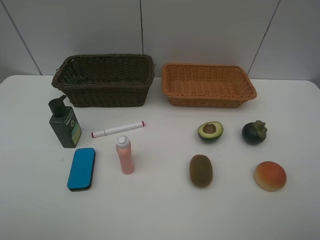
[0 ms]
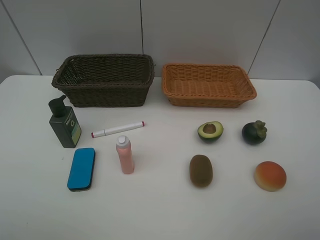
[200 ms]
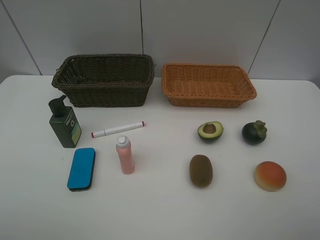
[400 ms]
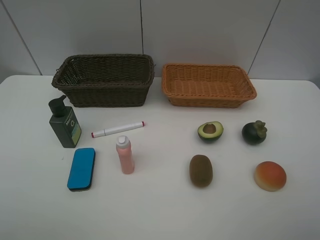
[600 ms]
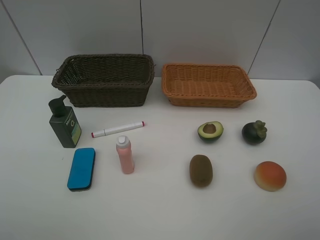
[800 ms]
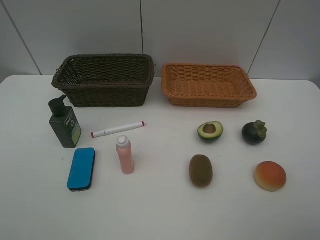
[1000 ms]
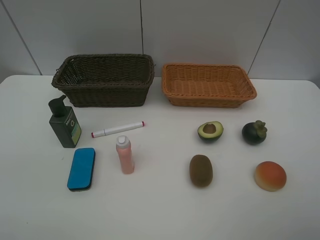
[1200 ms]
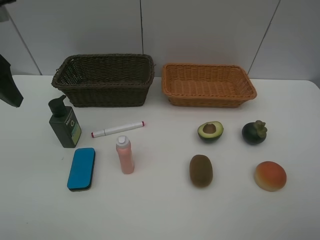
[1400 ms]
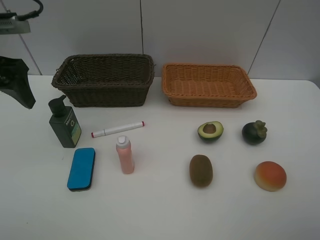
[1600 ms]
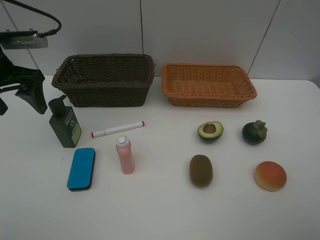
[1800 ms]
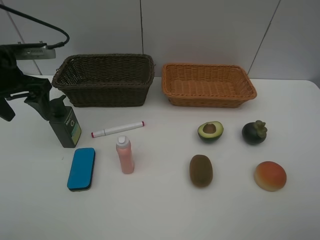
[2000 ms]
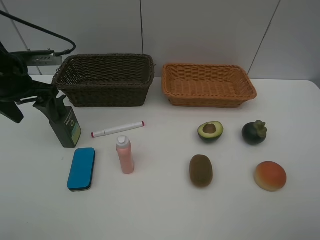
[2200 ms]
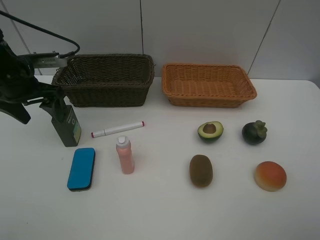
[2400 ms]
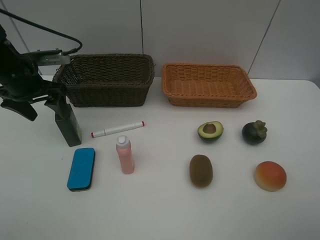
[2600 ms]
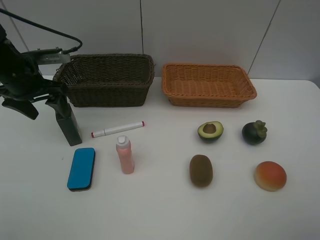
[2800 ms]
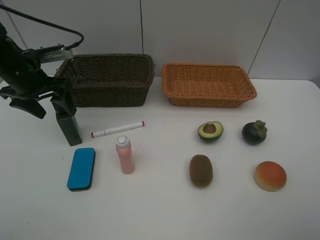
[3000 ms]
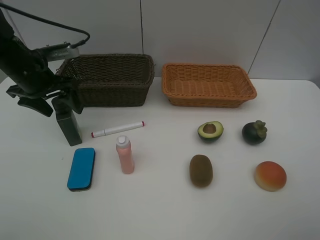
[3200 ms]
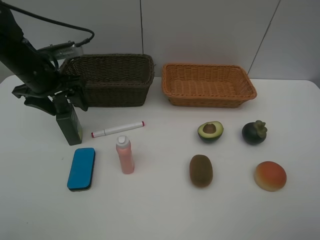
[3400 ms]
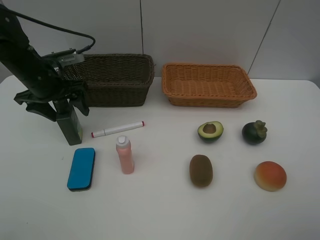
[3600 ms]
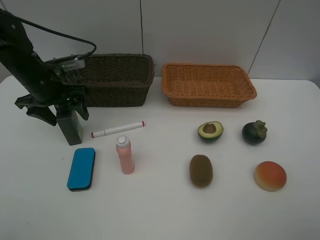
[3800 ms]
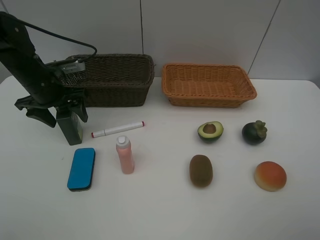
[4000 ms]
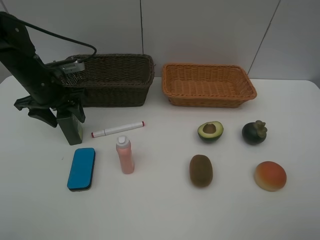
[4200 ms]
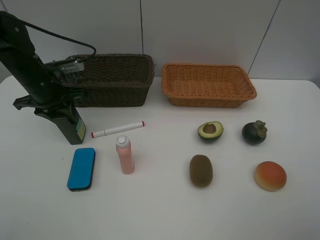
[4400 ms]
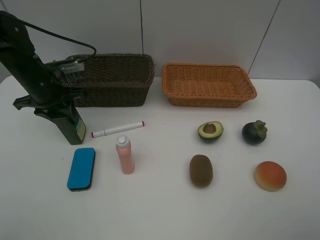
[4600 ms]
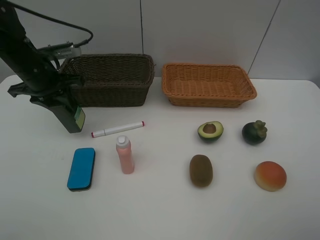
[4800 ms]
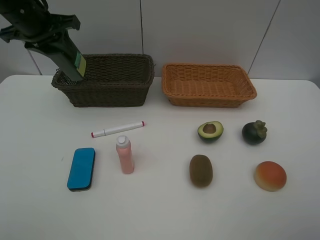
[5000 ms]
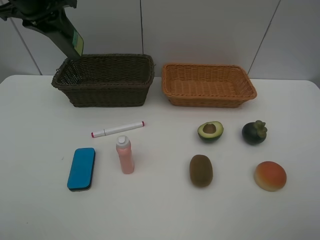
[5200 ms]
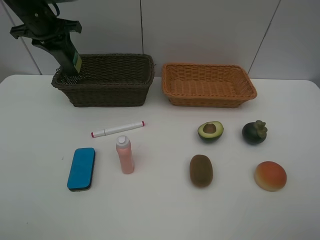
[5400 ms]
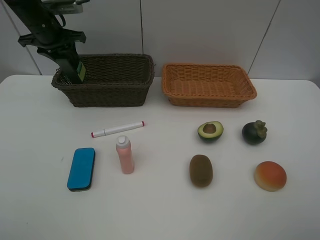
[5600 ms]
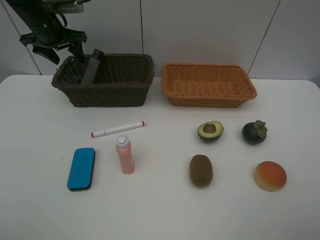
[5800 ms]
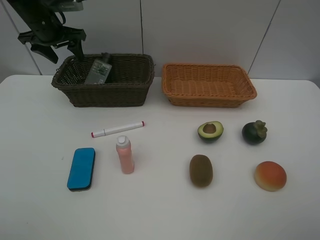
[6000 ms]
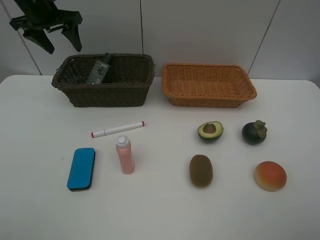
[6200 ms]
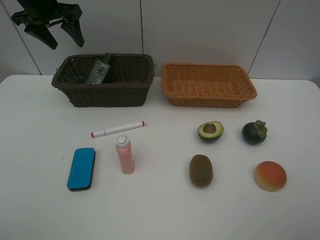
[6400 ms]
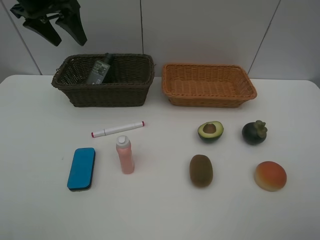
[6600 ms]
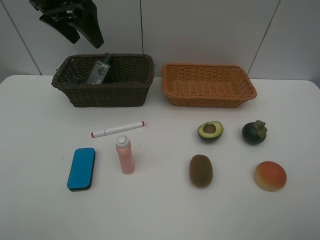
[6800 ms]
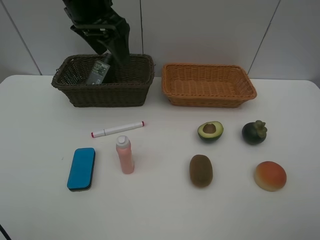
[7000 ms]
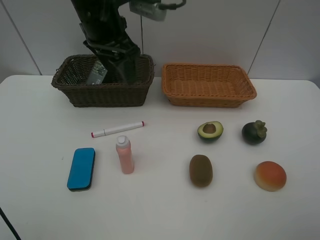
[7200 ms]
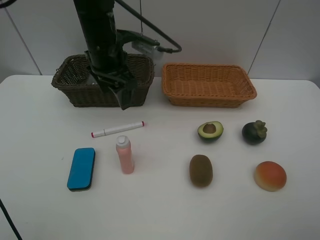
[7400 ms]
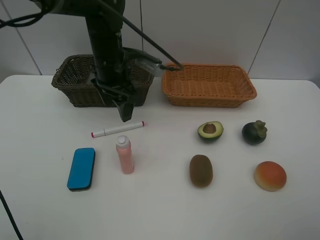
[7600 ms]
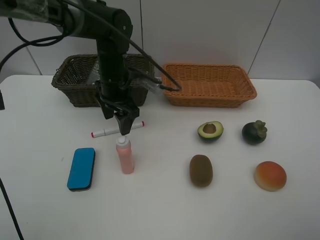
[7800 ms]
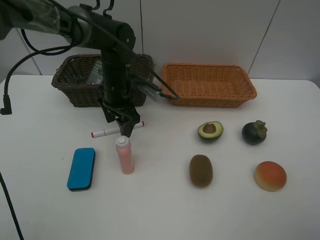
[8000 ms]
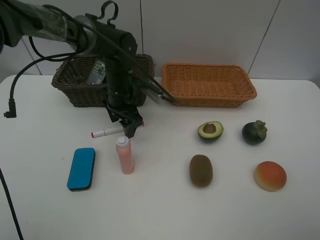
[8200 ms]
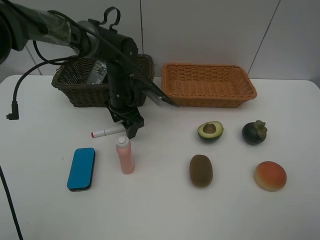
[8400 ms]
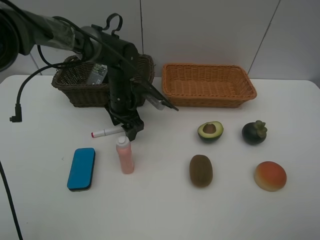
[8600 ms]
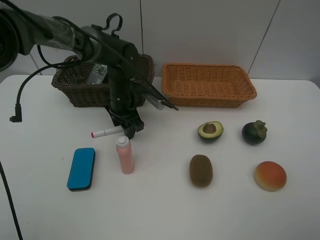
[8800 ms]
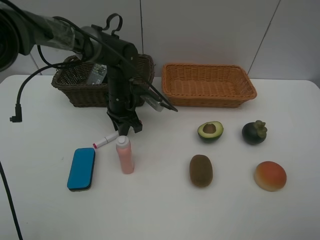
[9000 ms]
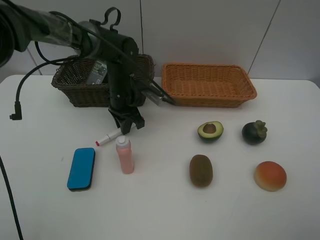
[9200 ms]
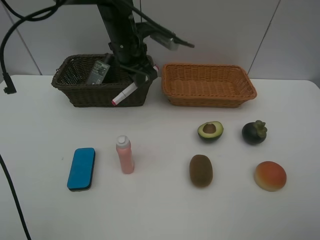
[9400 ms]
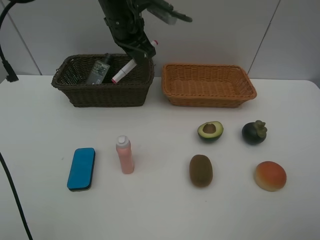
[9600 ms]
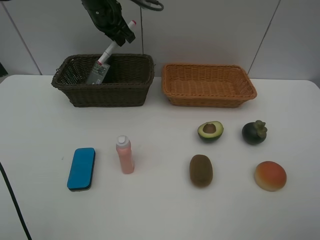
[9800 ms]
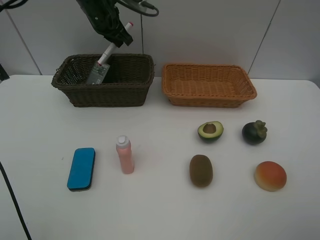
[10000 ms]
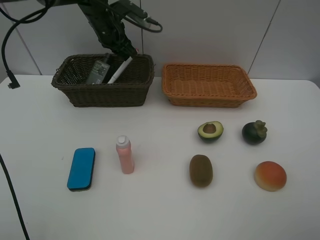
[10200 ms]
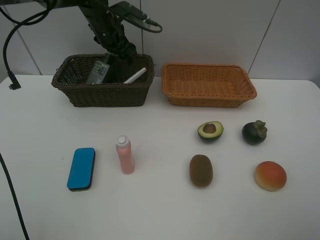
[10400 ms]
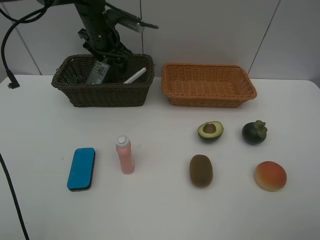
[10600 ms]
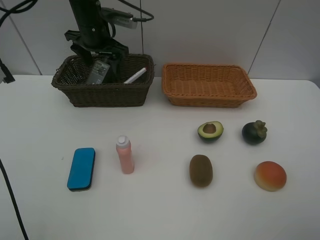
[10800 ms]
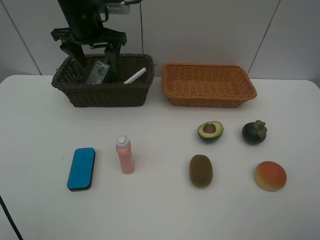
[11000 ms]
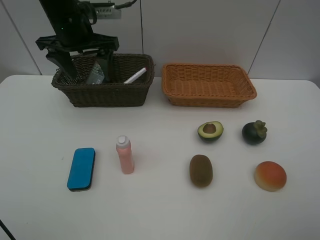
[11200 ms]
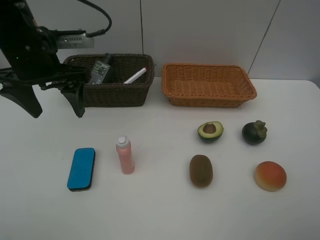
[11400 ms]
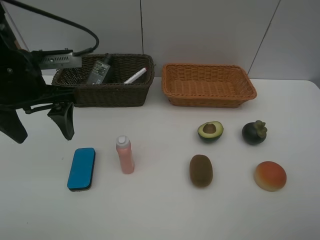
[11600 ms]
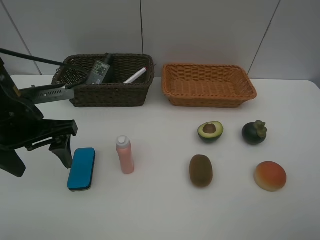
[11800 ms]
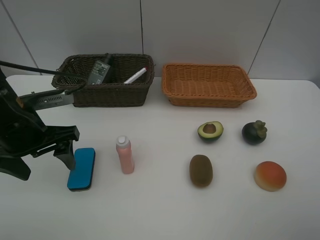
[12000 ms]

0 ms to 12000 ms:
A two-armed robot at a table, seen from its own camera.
Task of the whole recording: Place multiple objects separately in different baskets.
Step, 0 ms to 4800 ms: Pick up the hard facial cleanser with left gripper.
Step, 5000 ms to 6000 ms: Place the hard facial cleanser in the dark basket with left gripper.
Step, 6200 ms to 9200 ms: Pick up the red marker with left gripper.
Step, 9400 ms to 10400 ms: Place the red marker in the dark basket with left gripper.
0 ms to 1600 ms: The left gripper heads forward, covering approximately 30 cm.
1600 ms to 3000 ms: The left gripper travels downward and forward by approximately 10 cm.
3000 ms to 4400 ms: The left gripper closes.
4400 ms to 6000 ms: The left gripper is displaced forward and upward by some 15 cm, and opens its fingers.
6000 ms to 7600 ms: The left gripper heads to the right and backward, covering about 20 cm.
7600 ms to 9000 ms: The left gripper shifts about 10 cm downward, and closes.
9000 ms to 10400 ms: The left gripper shifts some 15 cm upward and forward, and opens.
10400 ms to 12000 ms: The left gripper shifts approximately 30 cm backward.

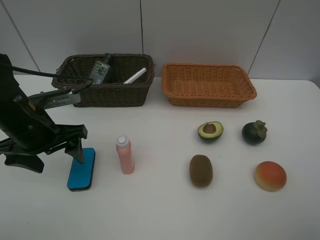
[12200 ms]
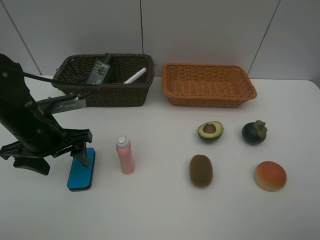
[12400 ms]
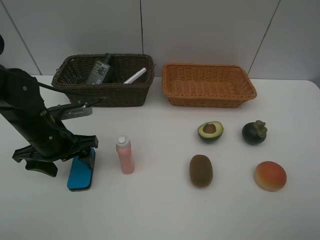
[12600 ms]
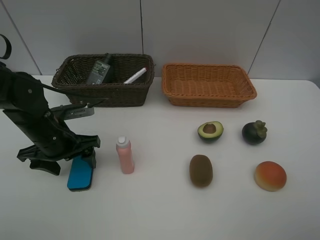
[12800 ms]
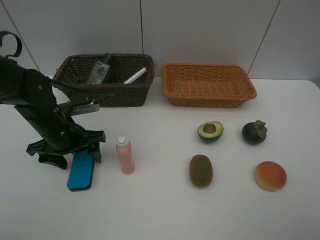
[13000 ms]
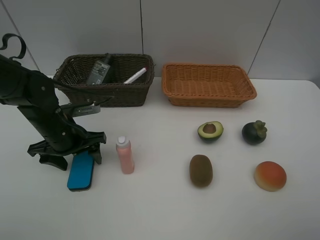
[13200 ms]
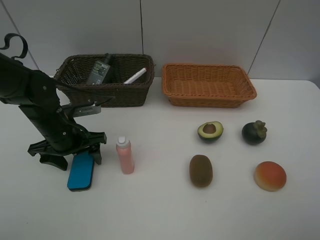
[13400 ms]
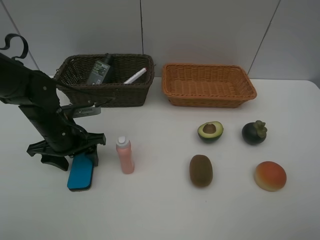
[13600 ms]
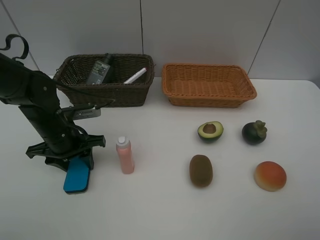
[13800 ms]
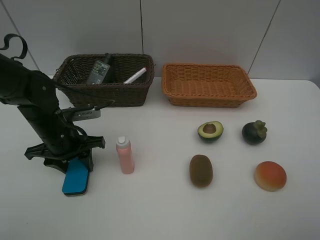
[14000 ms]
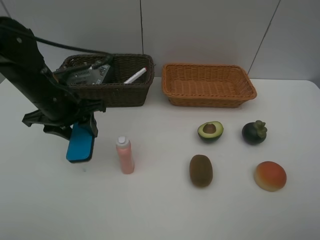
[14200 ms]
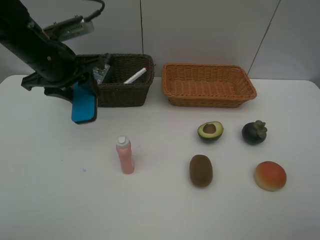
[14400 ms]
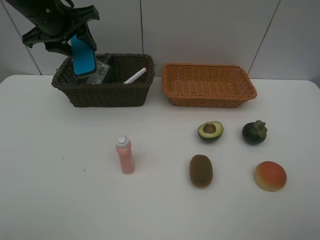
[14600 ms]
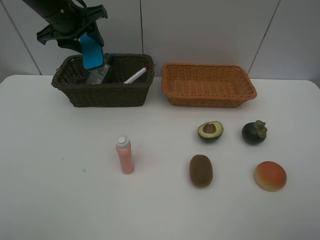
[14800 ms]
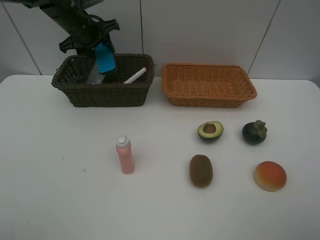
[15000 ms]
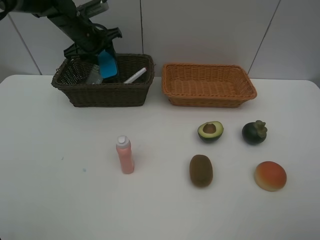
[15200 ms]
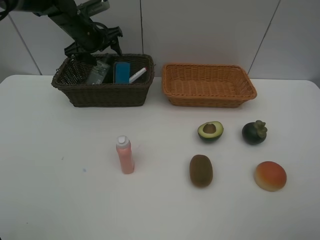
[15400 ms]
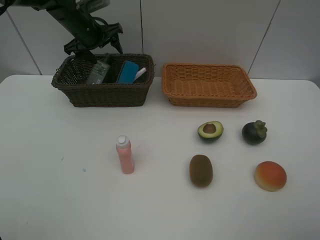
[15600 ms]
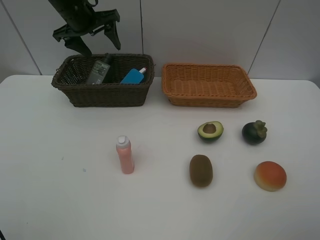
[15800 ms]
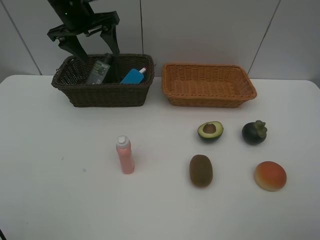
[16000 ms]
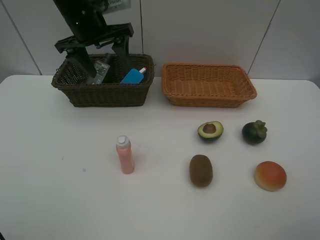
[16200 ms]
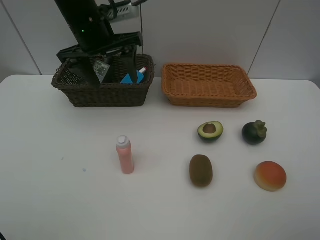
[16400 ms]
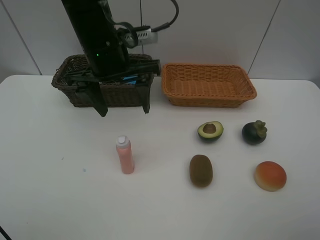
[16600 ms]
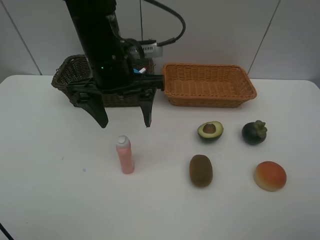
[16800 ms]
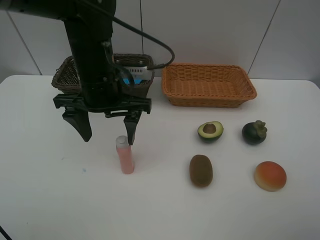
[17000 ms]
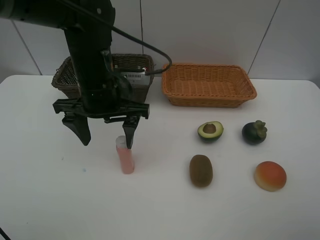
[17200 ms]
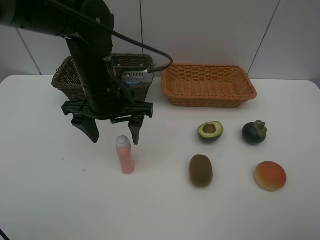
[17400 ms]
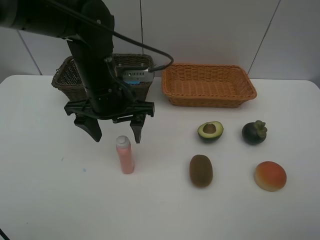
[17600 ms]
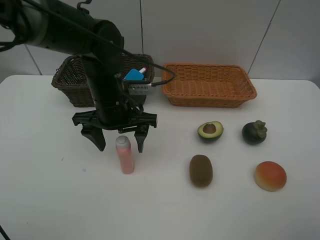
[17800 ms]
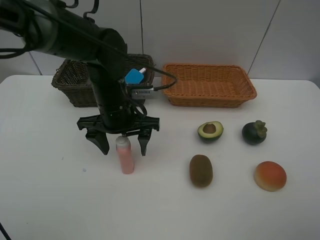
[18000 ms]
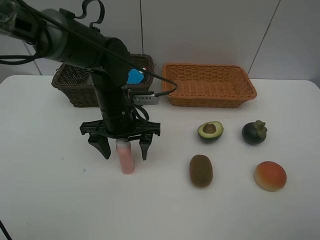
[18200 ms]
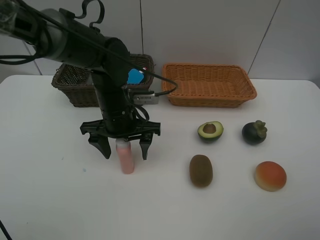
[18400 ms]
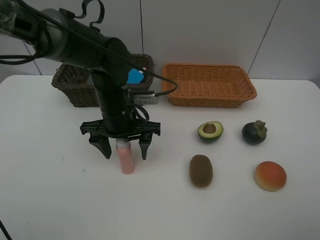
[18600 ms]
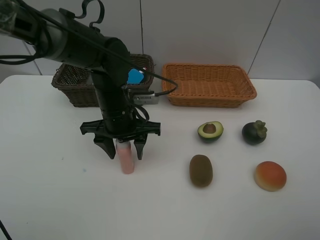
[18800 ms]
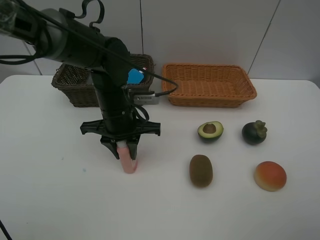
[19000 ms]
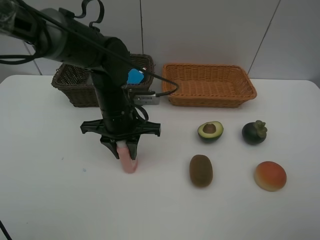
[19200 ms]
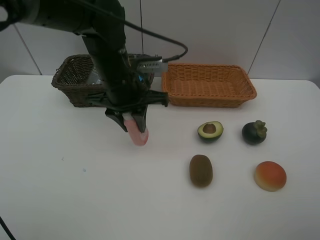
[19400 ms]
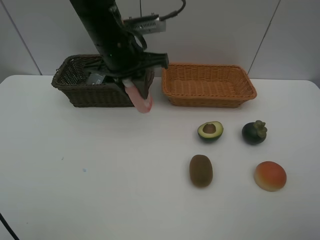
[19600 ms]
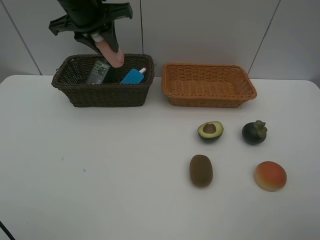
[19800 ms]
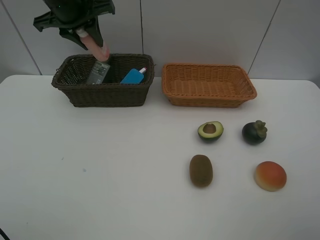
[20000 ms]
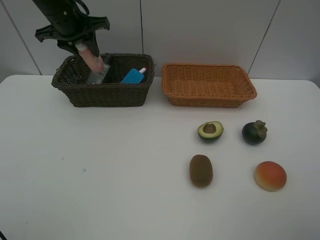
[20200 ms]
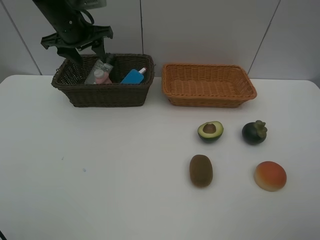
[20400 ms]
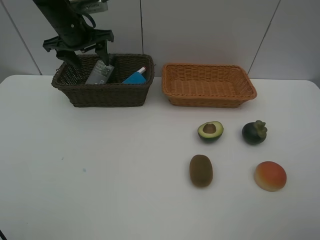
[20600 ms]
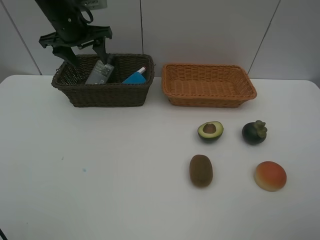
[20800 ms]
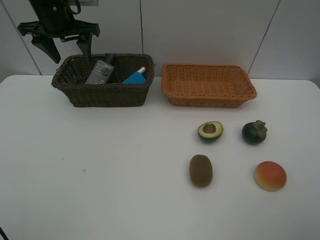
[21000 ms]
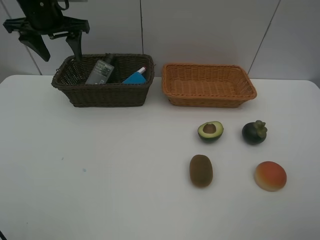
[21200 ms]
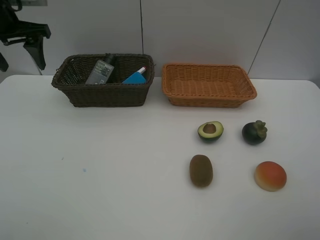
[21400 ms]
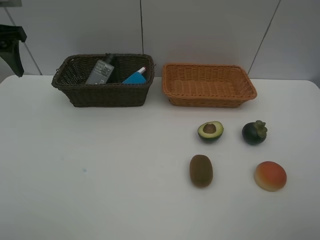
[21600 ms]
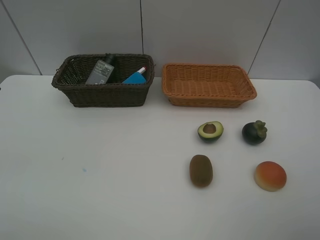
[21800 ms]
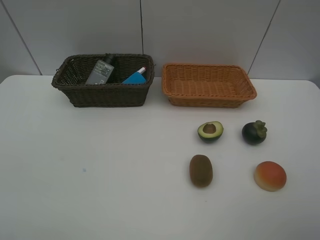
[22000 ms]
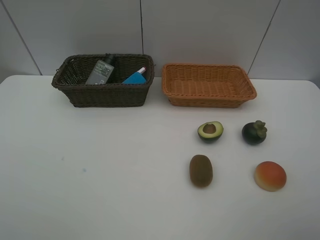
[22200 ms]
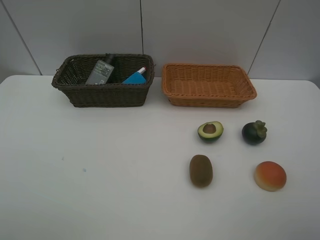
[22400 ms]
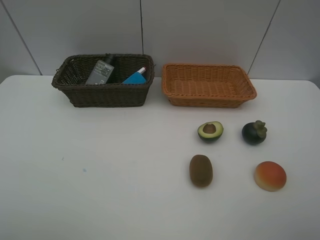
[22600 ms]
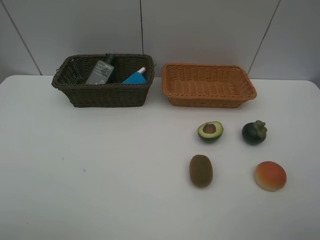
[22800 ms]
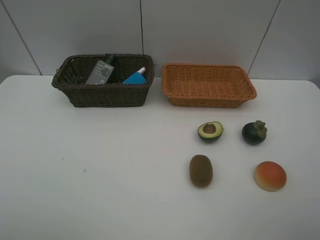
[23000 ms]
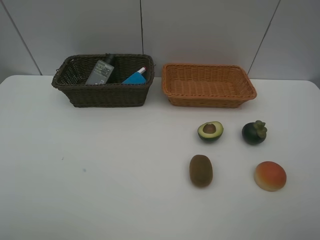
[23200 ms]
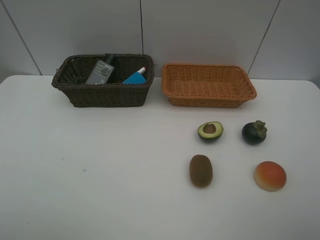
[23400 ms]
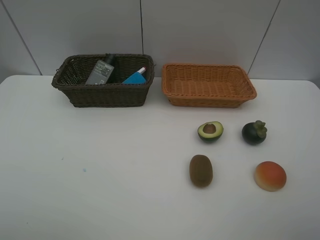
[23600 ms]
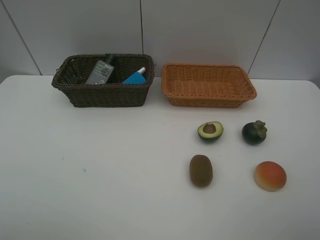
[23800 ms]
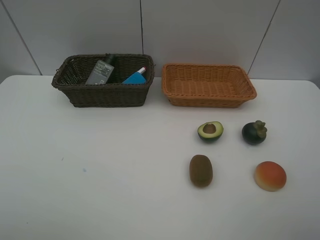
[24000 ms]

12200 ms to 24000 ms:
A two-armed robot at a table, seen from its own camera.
Task of the whole recording: Place multiple objects separately in different baskets.
Step, 12200 ms to 14000 ms: Pick up blackboard eraser with left gripper.
Step, 14200 ms to 15400 ms: Place the blackboard eraser in the dark basket with left gripper.
Step, 15600 ms to 19200 ms: Pick up the laundry detergent with left gripper.
Step, 19400 ms to 20400 ms: Place the laundry detergent in the dark basket with left gripper.
12200 ms to 13600 ms: The left gripper is displaced downward by about 5 cm.
13600 ms to 15200 ms: The left gripper is displaced forward and upward by about 25 cm.
15200 ms to 16600 ms: The left gripper goes roughly 20 cm backward and to the right.
16600 ms to 18200 ms: The left gripper moves downward, some 10 cm.
18200 ms to 19600 ms: The left gripper moves upward, some 15 cm, and closes up.
19600 ms to 21000 ms: The left gripper is displaced to the left and forward by roughly 15 cm, and opens.
21000 ms to 22600 ms: The left gripper shifts some 40 cm backward.
